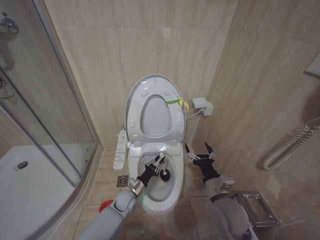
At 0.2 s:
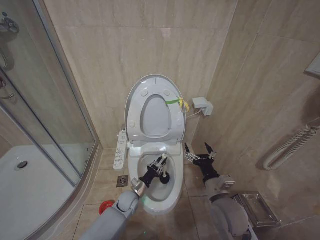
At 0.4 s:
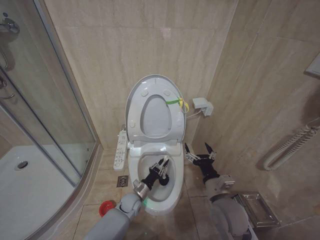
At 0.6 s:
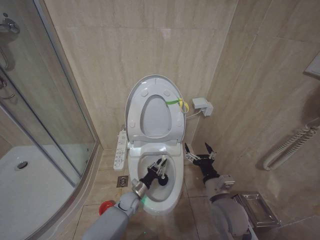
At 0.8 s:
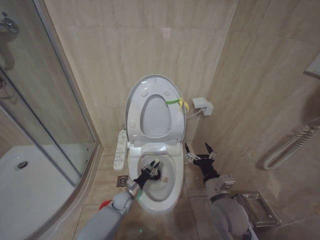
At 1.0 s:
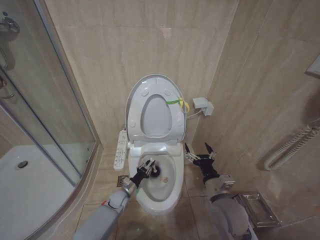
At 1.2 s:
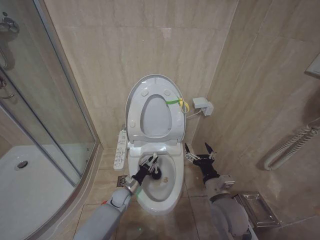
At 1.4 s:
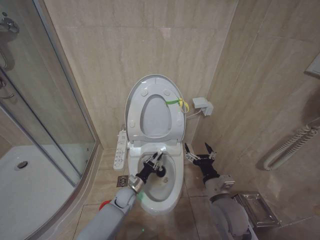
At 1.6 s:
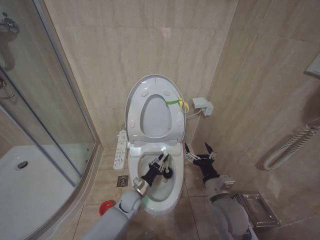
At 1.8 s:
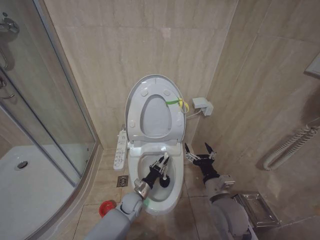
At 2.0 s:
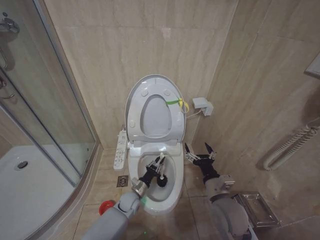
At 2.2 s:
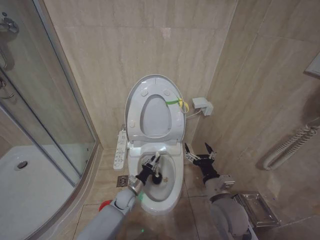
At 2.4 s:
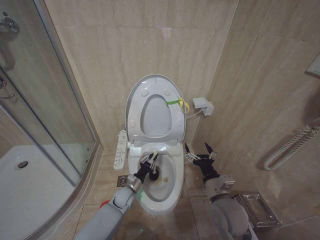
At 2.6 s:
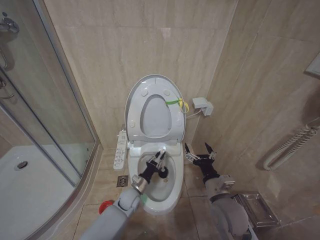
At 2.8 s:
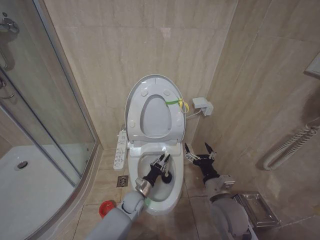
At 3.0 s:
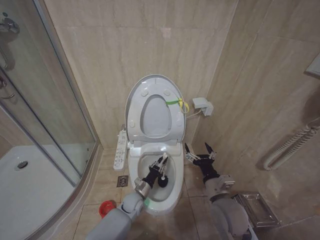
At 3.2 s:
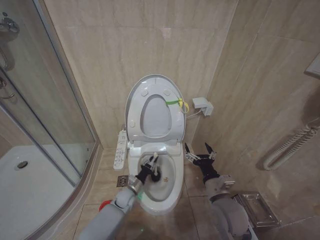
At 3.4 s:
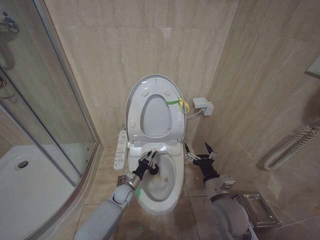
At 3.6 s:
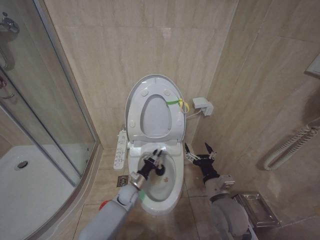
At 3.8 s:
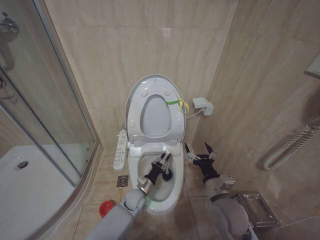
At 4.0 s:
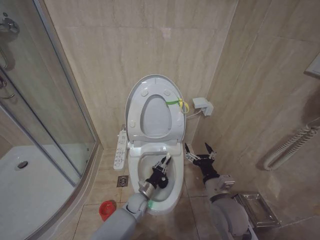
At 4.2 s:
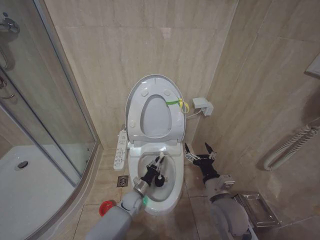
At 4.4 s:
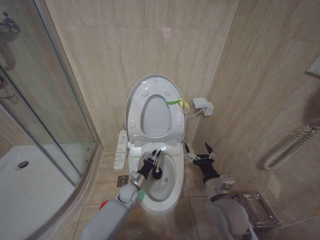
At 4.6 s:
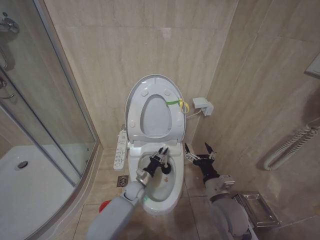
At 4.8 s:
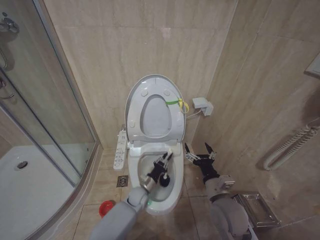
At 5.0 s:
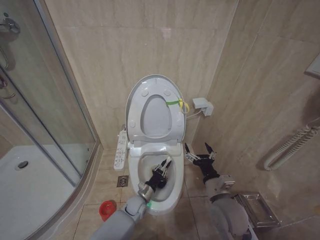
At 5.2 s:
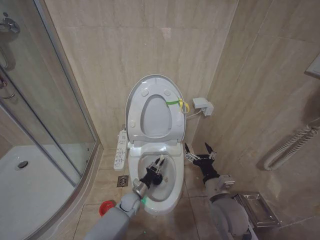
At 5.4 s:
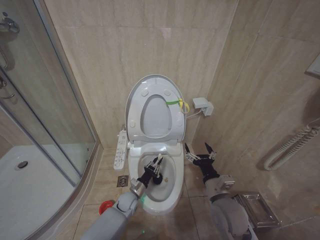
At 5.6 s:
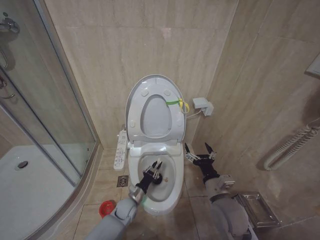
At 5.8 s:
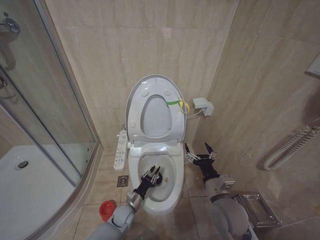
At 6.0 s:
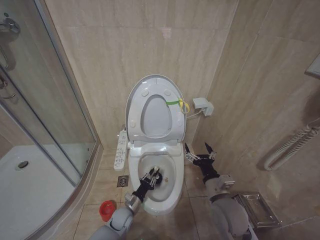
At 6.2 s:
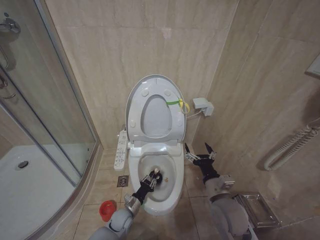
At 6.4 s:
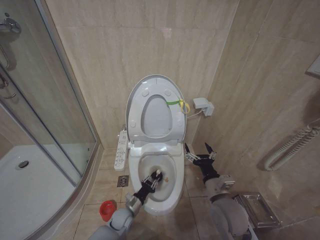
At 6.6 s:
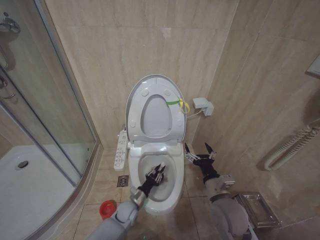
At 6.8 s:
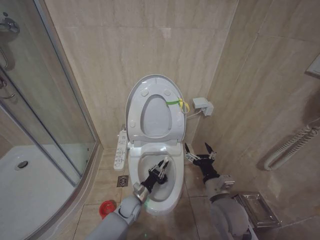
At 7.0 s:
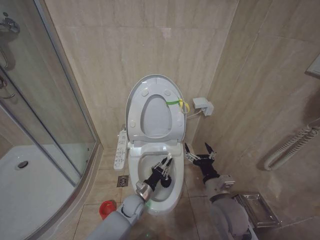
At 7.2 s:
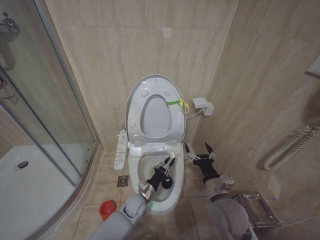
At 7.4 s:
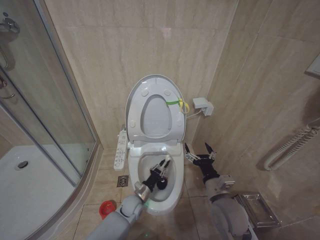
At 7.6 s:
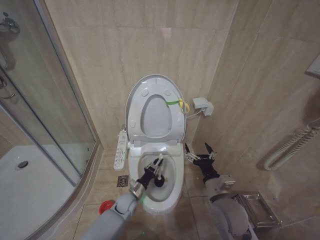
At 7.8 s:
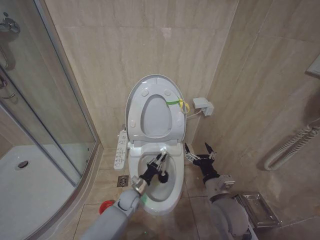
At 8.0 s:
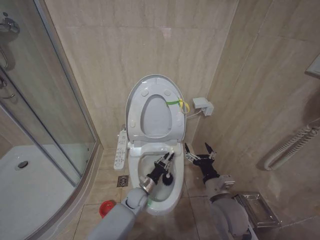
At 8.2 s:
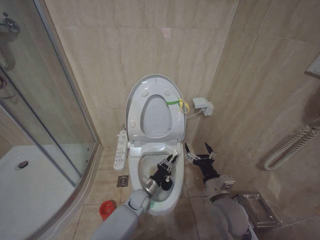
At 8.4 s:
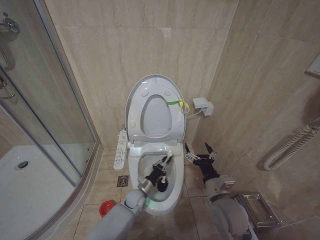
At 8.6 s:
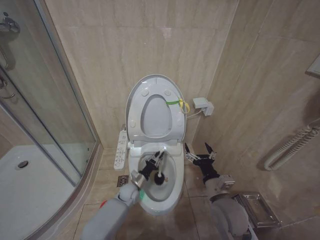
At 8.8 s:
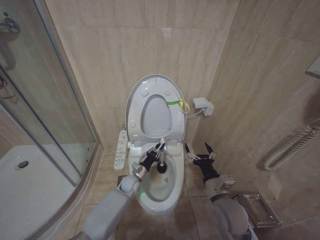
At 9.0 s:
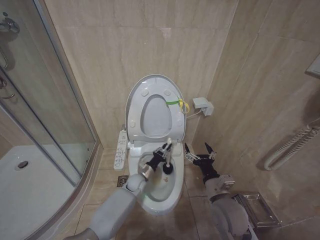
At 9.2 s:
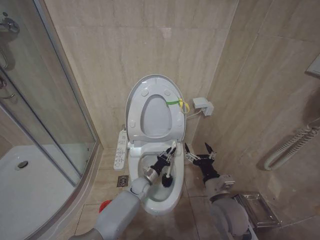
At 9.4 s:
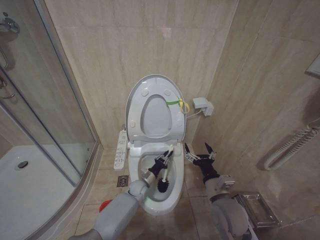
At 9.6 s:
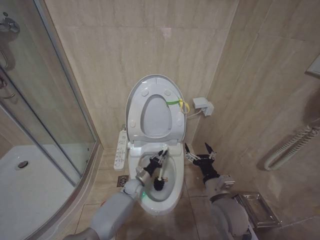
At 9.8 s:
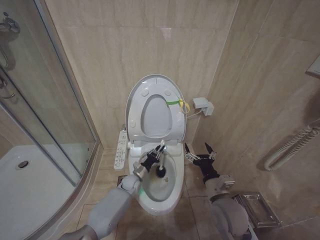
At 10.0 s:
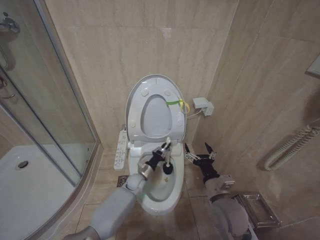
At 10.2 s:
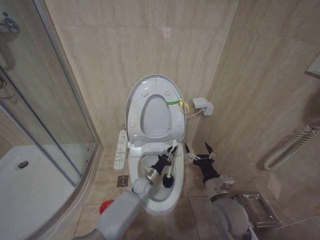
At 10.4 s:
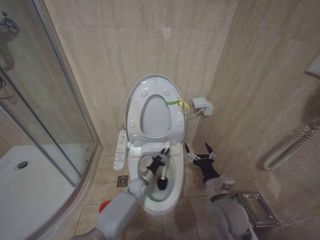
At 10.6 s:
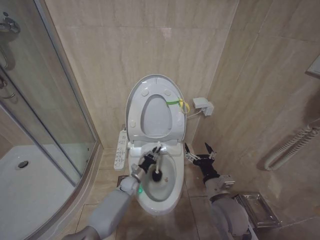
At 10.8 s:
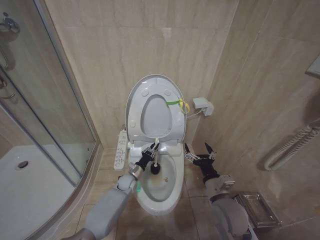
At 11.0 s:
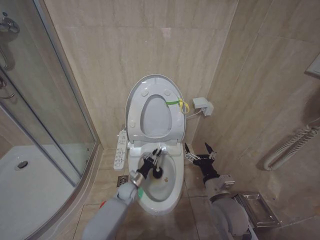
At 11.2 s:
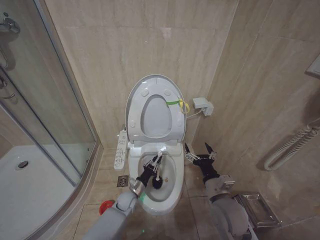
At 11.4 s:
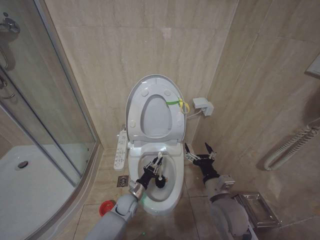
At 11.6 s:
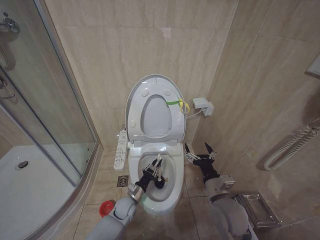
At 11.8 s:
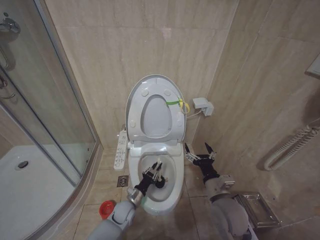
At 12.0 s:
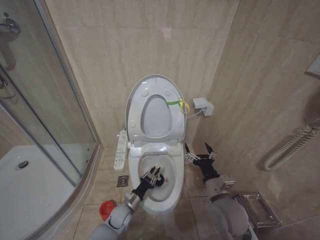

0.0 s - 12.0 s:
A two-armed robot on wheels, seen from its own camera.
Task of the whole recording: Open the toilet lid, clean the toilet bowl with a toilet brush, close the toilet lid, and flush.
0.0 s - 1.6 s: There are only small adjustments of the grippers.
3.0 s - 4.4 s: The left gripper swings left and right, about 10 cm each way, with 2 reversals.
4.4 s - 6.0 s: The left gripper goes about 10 cm backward.
7.6 s - 9.0 s: The left gripper heads forward, covering roughly 10 cm.
9.0 s - 10.4 s: There are only small adjustments of the grippers.
10.4 s - 12.0 s: The left gripper shifts roughly 15 cm backward and to the left.

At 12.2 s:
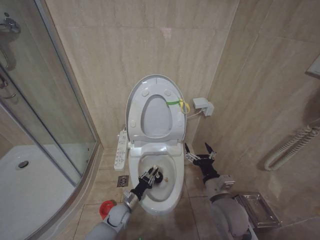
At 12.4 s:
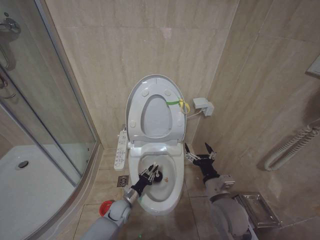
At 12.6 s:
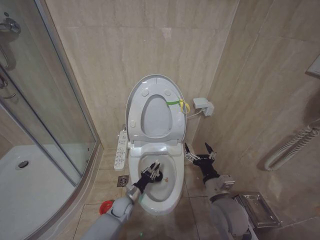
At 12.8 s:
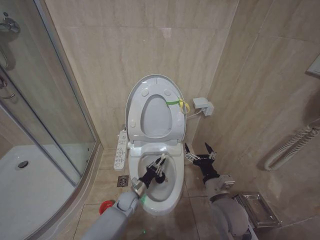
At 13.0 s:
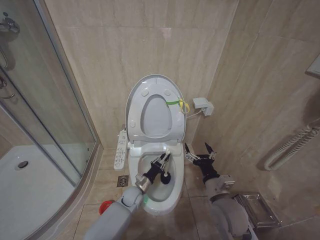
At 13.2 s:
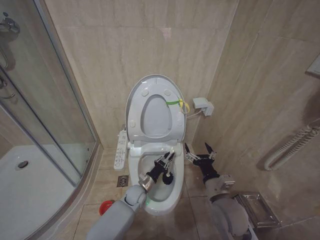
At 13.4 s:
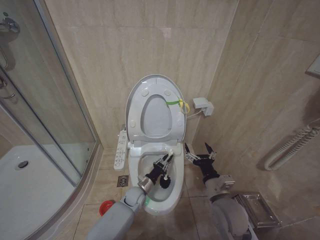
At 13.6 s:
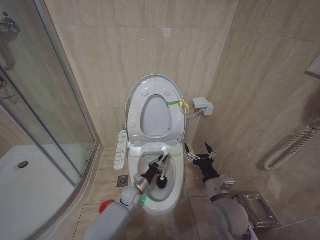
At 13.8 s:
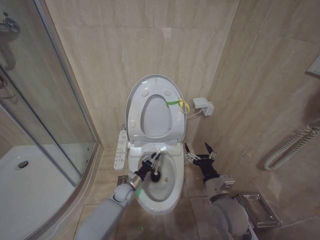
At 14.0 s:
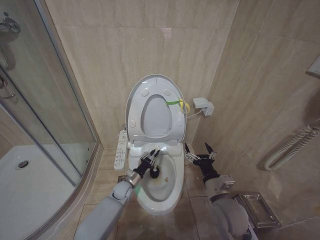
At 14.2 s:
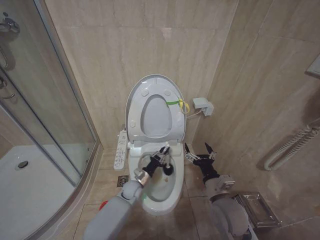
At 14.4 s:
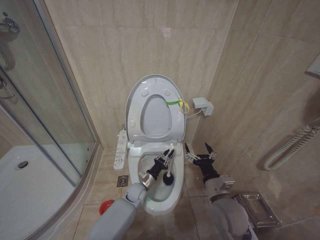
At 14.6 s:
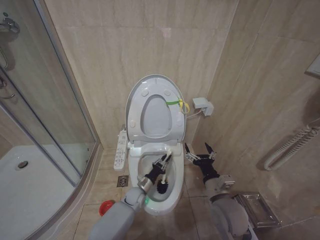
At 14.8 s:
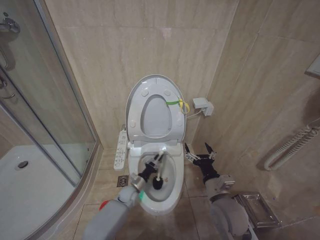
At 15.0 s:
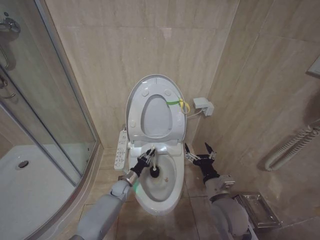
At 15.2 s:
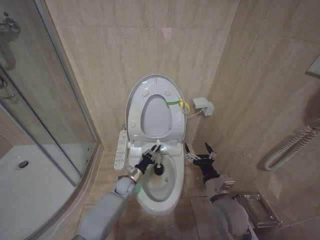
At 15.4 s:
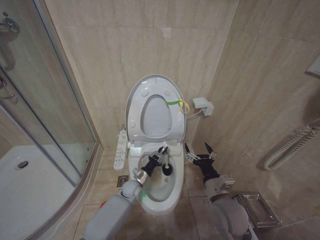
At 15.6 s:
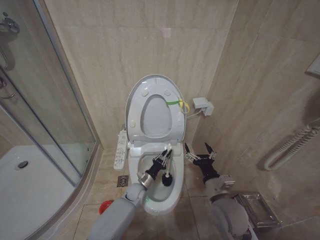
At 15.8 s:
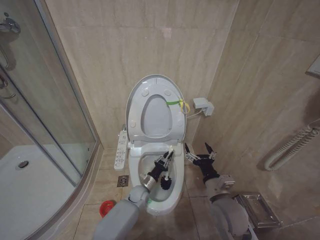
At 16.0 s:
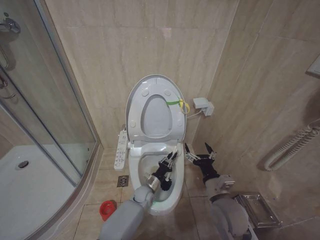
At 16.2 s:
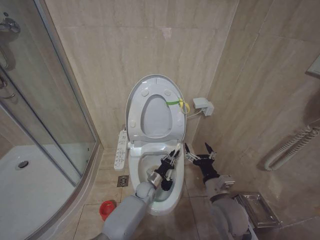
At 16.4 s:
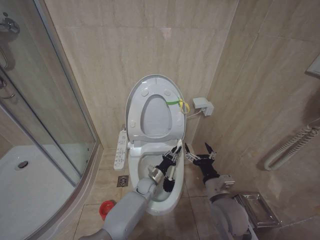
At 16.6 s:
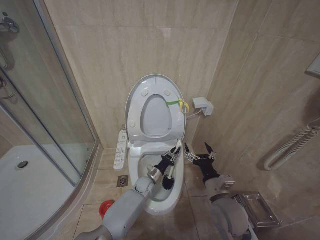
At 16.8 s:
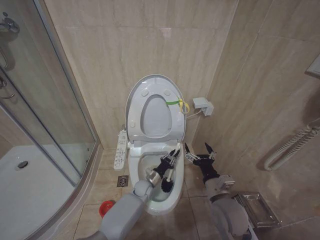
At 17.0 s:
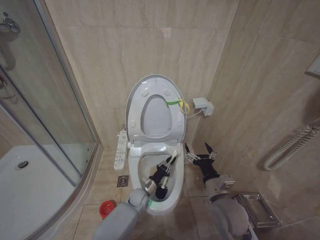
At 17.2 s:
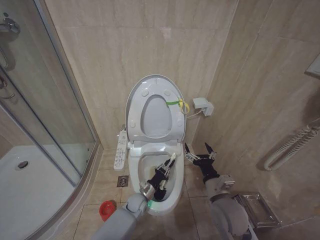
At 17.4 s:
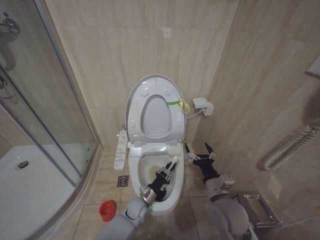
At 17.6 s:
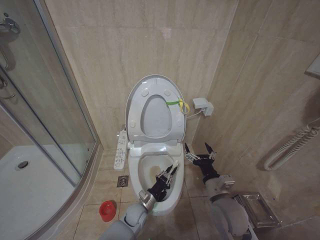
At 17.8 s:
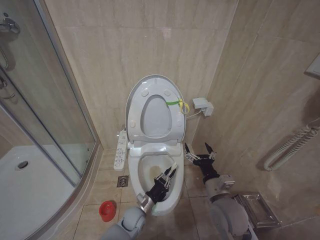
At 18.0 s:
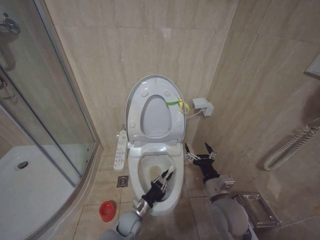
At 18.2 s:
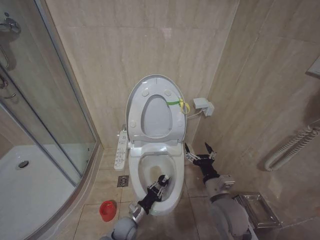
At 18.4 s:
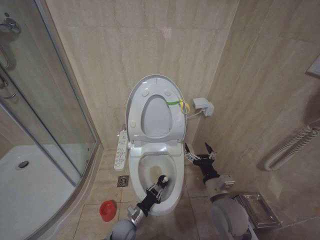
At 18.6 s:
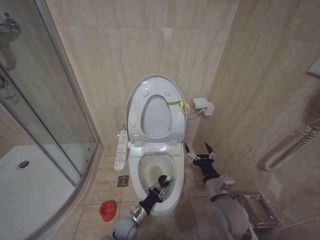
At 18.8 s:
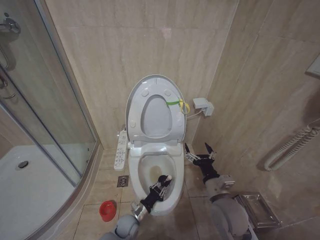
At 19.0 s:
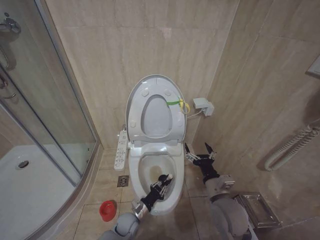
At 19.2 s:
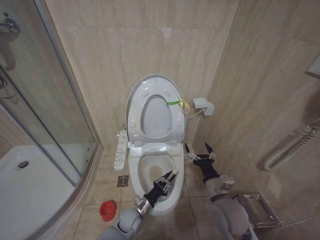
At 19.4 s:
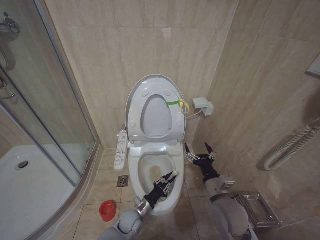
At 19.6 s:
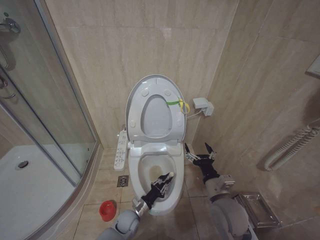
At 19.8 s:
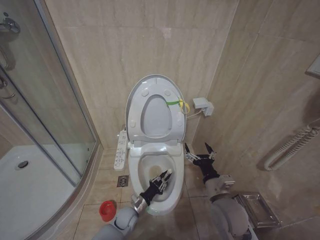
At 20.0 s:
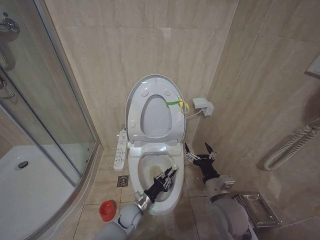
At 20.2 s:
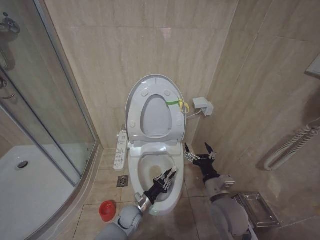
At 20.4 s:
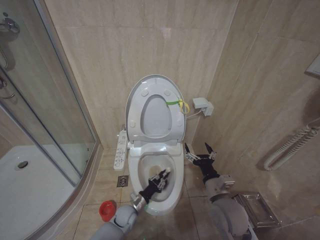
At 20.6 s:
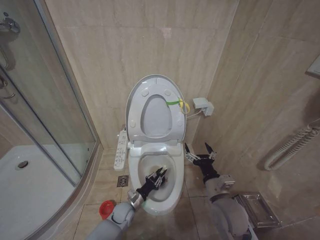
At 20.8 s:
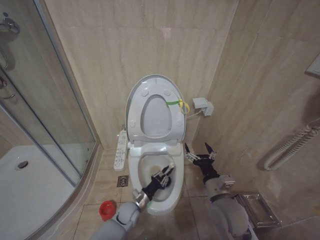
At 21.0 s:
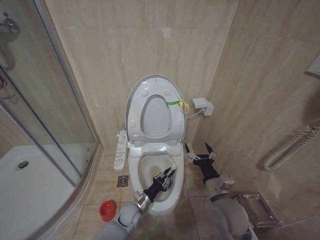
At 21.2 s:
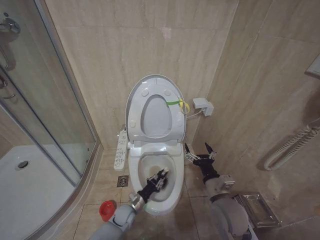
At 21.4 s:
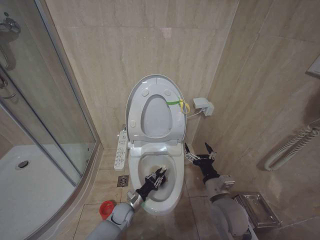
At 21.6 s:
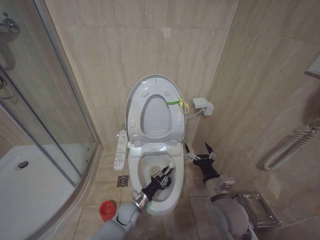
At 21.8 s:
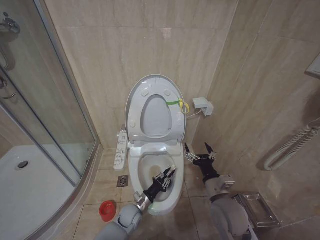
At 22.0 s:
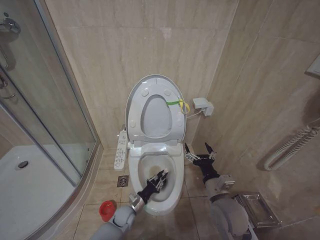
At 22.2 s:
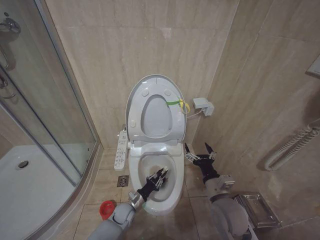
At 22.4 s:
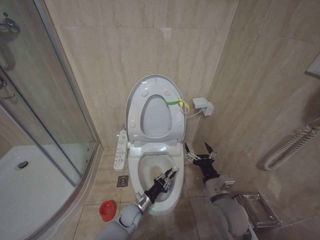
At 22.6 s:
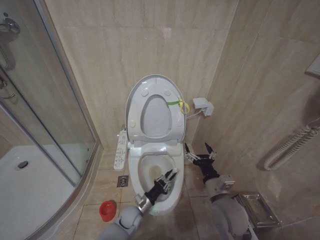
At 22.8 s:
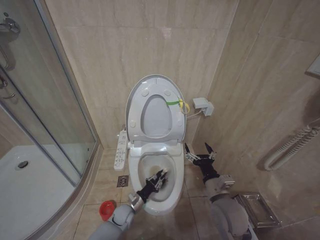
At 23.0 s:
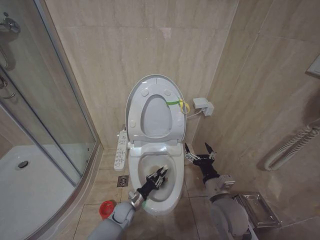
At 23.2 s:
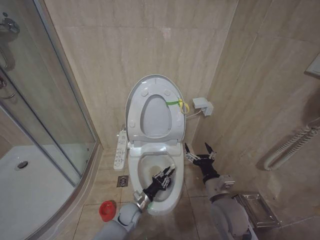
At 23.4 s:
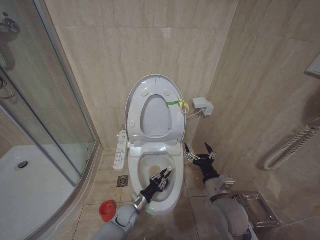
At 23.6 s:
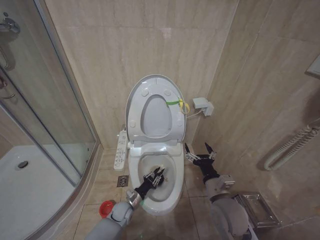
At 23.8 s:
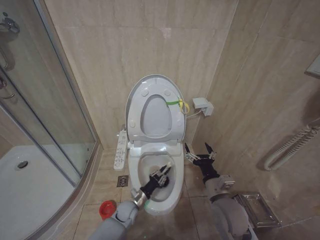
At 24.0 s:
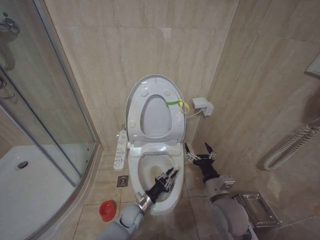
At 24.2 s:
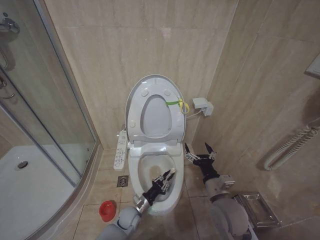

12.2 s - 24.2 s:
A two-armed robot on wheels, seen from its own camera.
Task of the whole recording: Open the toilet lid, clean the toilet bowl with a toilet brush, close the toilet lid, and flush.
12.2 s - 13.8 s: The left gripper is displaced forward by some 10 cm.
13.8 s - 15.2 s: The left gripper goes to the right and returns, roughly 5 cm each way.
15.2 s - 16.6 s: The left gripper goes about 10 cm to the right.
16.6 s - 18.2 s: The left gripper moves backward and to the left, about 15 cm.
18.2 s - 22.6 s: The grippers move only a little.
